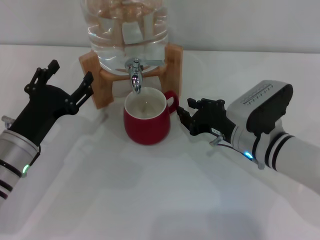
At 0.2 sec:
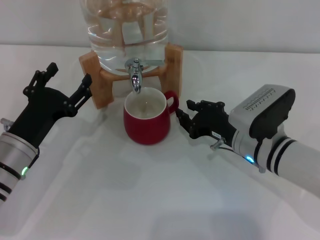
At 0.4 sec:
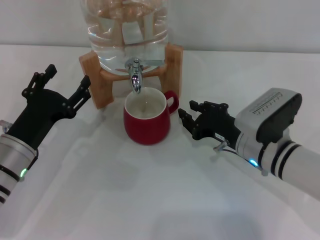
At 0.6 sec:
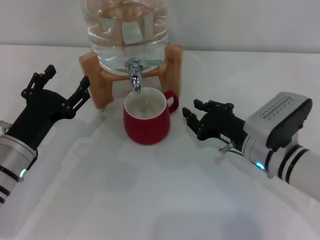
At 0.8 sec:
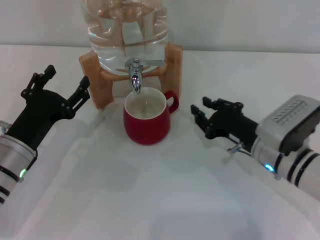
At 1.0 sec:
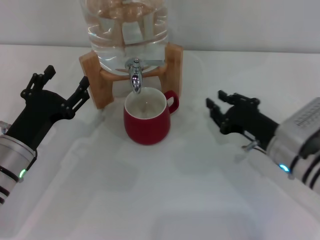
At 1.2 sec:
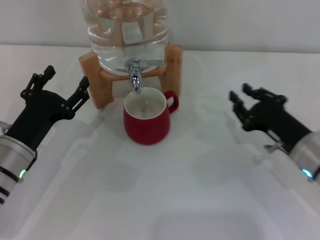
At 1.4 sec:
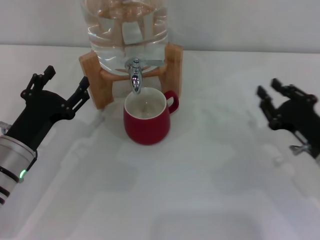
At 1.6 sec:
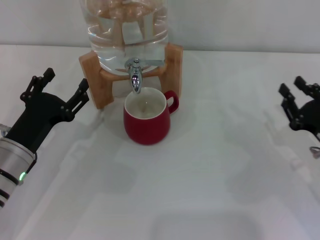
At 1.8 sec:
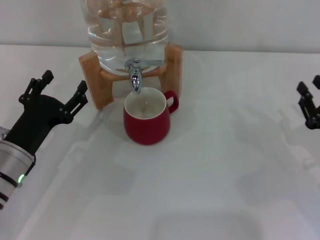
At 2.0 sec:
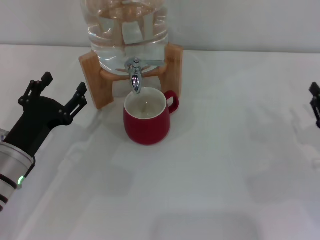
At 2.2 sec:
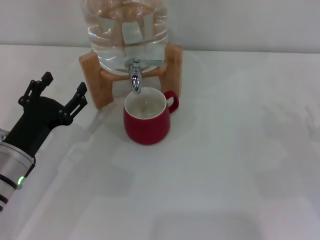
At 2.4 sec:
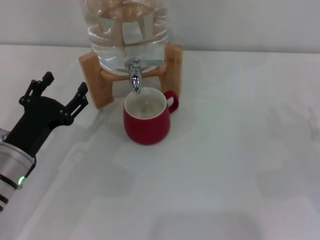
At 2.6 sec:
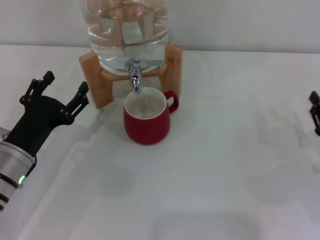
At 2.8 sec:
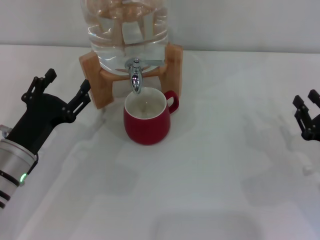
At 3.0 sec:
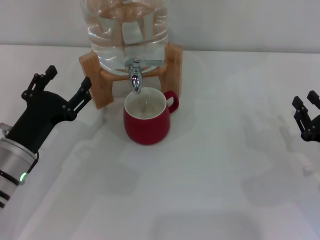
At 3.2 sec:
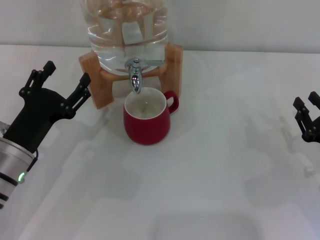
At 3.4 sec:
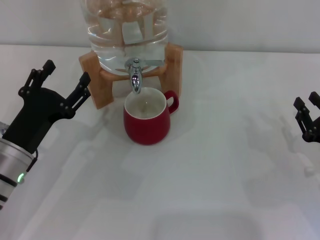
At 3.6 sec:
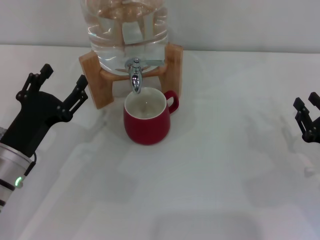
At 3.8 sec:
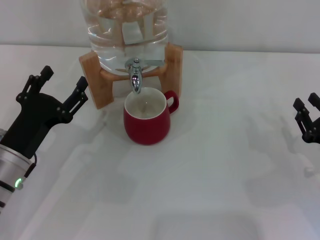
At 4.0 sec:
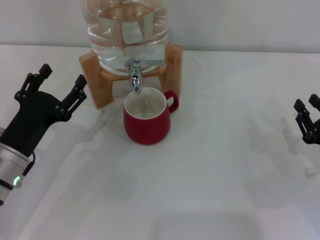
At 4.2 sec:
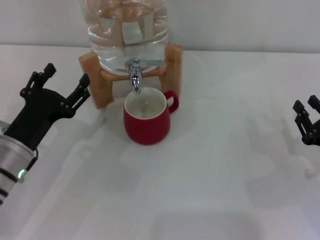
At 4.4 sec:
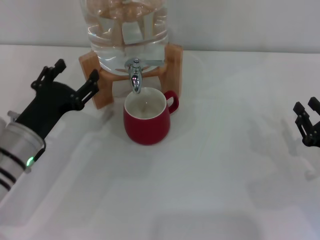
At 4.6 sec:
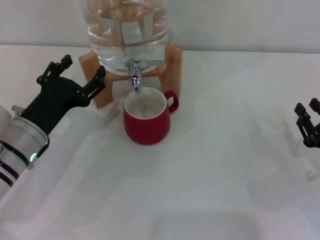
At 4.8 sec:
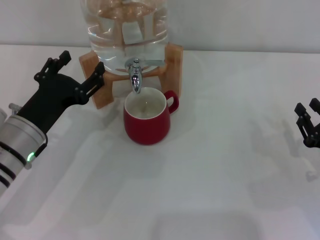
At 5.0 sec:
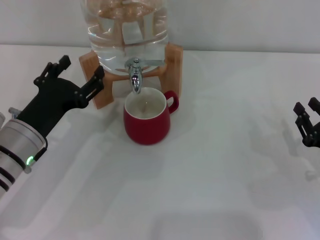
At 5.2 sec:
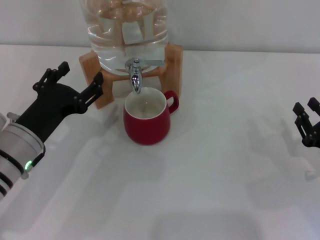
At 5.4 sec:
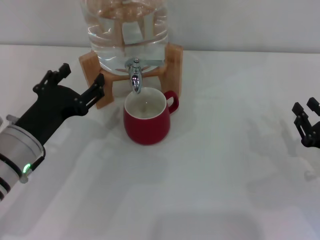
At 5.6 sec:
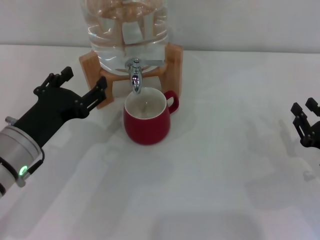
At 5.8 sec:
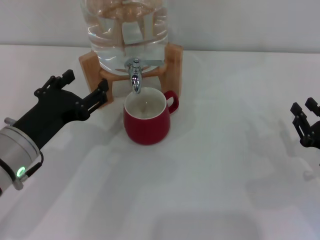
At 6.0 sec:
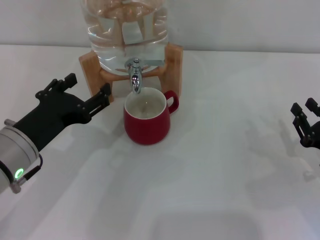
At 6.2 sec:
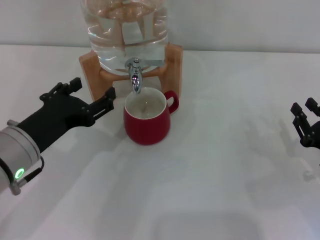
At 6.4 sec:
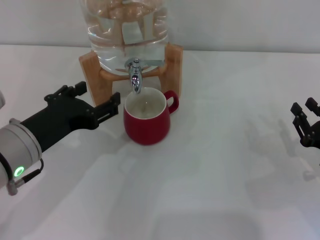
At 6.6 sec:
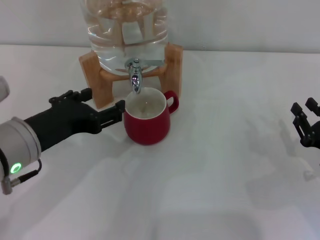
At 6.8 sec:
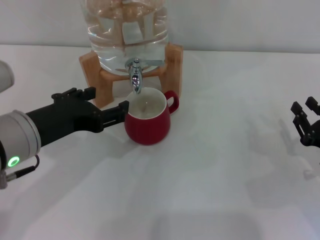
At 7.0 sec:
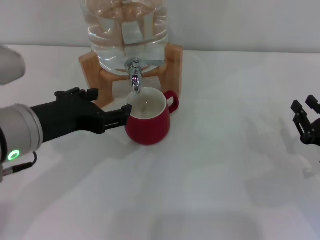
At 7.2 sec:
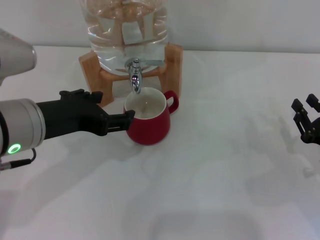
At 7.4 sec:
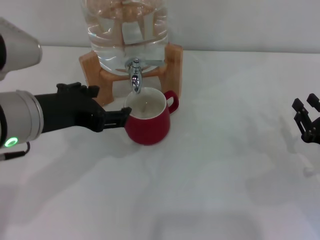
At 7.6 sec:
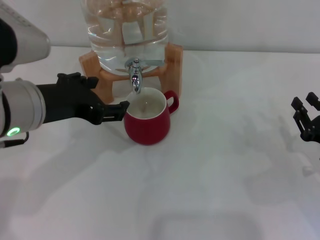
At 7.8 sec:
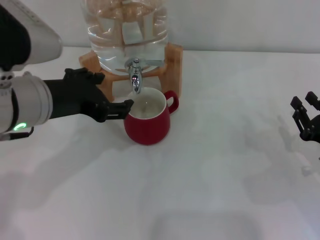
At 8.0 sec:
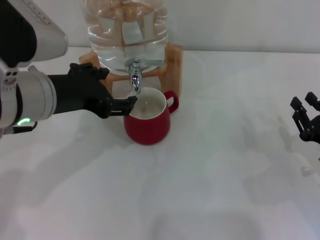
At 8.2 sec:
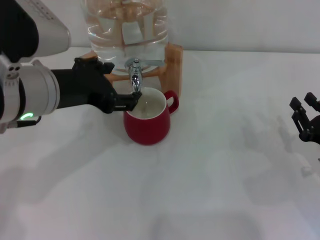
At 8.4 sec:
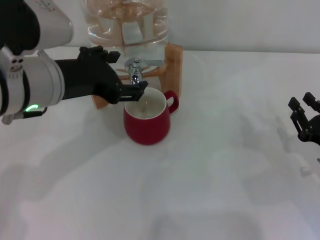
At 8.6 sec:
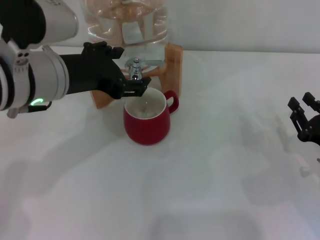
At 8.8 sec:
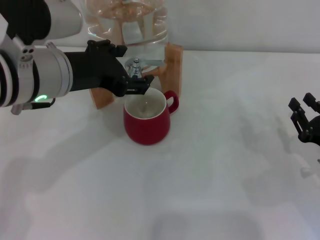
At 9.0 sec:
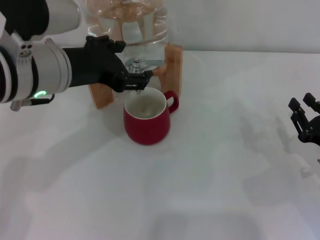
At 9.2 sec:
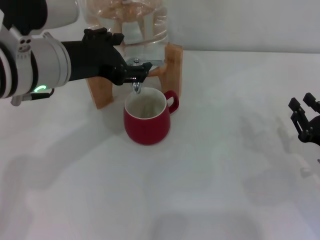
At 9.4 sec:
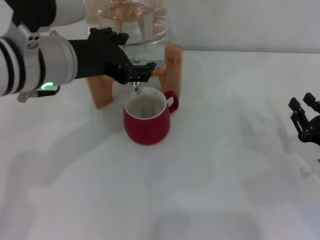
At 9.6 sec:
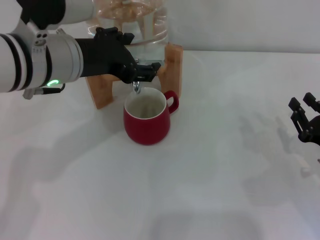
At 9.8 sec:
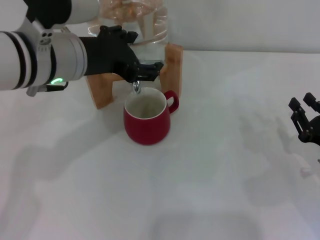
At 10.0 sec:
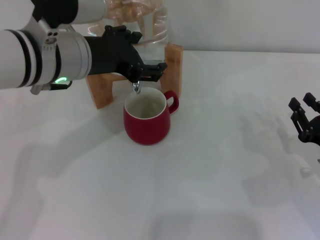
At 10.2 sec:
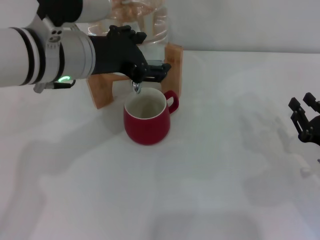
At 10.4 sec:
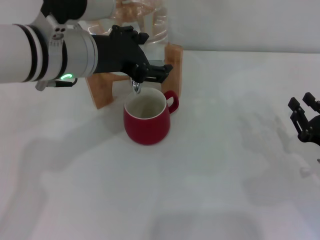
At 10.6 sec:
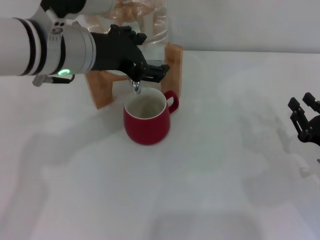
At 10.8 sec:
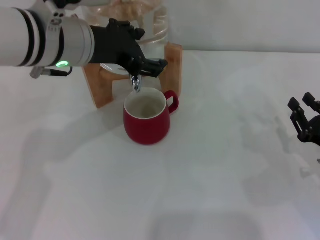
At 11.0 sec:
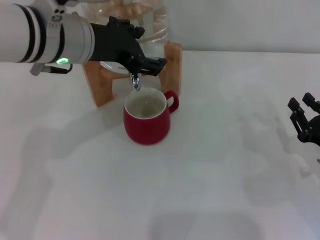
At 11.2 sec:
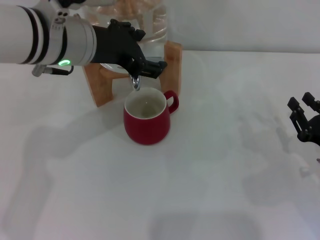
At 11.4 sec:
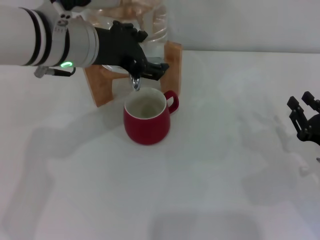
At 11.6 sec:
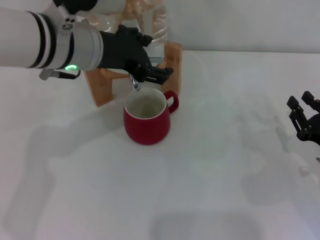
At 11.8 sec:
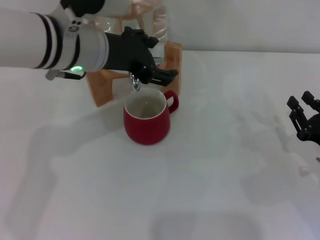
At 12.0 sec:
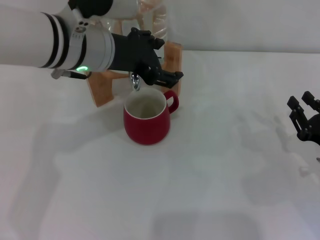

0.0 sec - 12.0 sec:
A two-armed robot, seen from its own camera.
Task of the whole recording: the right gripper pick up the red cup and place it horizontally under the faucet, the left gripper turn on the faucet to fill the cup, and then turn off the faucet.
0.0 sec - 1.6 sec: The right gripper moves to the right and backward, approximately 15 cm.
1.6 sec - 4.4 sec: The grippers move only a little.
4.4 sec - 6.0 sec: The left gripper is displaced upward by approximately 5 cm.
6.0 sec - 7.6 sec: The left gripper is displaced upward by approximately 10 cm.
7.6 sec - 9.0 sec: There are only small adjustments of the grippers.
9.0 sec - 10.4 sec: The grippers move only a little.
10.4 sec - 12.0 sec: The grippers make only small movements.

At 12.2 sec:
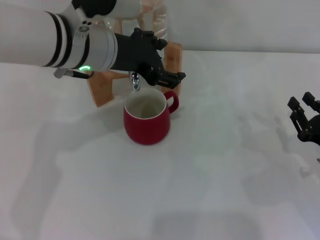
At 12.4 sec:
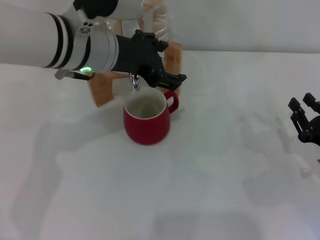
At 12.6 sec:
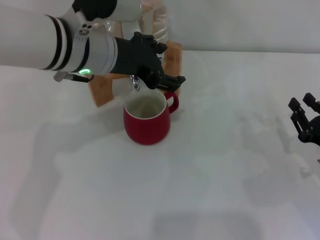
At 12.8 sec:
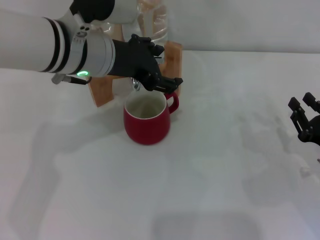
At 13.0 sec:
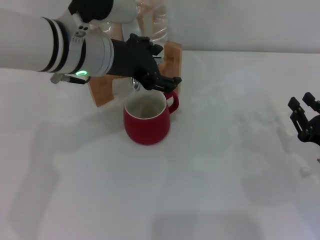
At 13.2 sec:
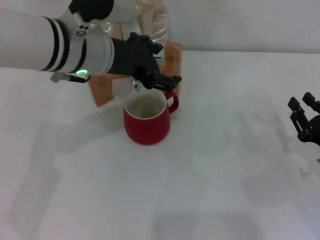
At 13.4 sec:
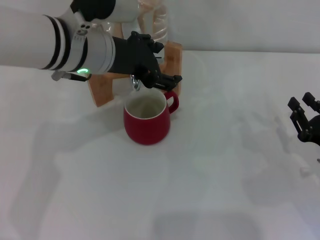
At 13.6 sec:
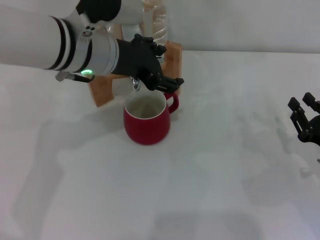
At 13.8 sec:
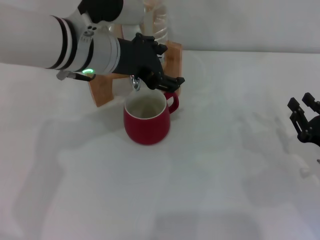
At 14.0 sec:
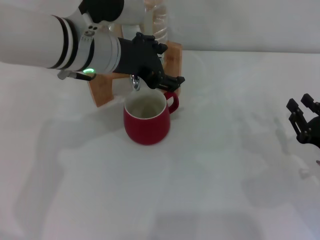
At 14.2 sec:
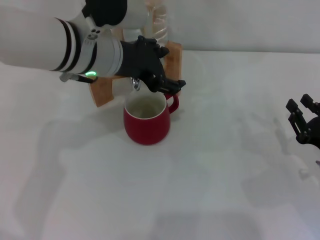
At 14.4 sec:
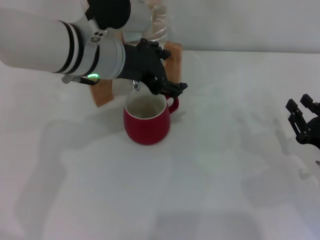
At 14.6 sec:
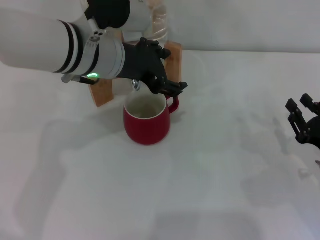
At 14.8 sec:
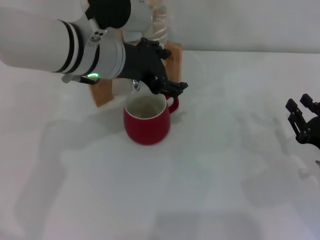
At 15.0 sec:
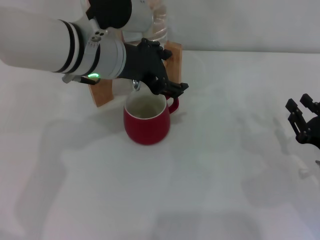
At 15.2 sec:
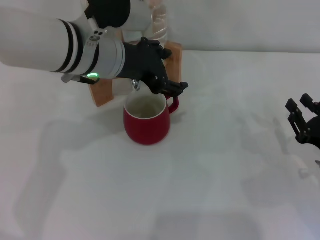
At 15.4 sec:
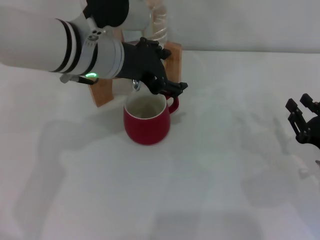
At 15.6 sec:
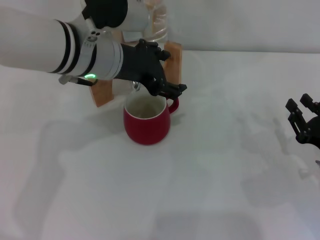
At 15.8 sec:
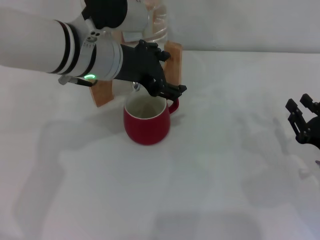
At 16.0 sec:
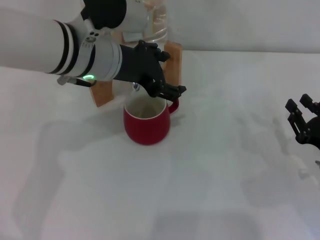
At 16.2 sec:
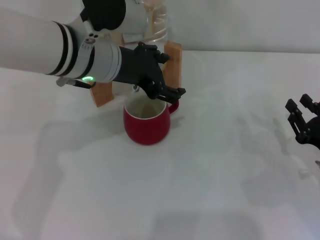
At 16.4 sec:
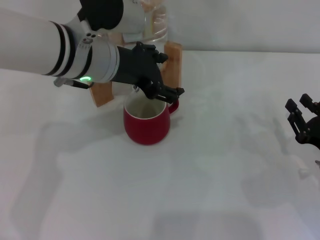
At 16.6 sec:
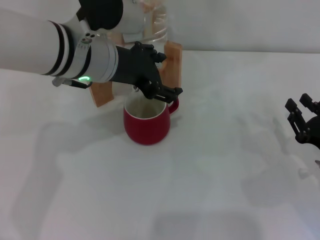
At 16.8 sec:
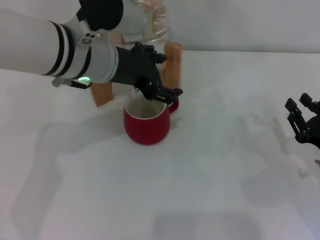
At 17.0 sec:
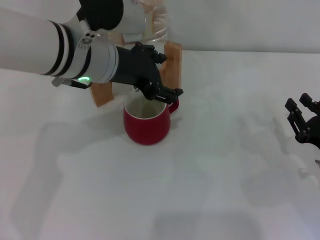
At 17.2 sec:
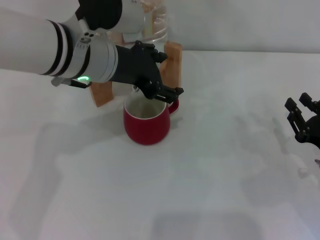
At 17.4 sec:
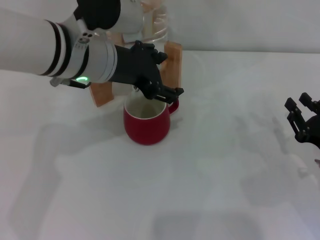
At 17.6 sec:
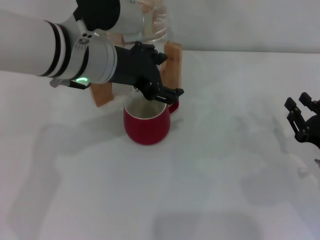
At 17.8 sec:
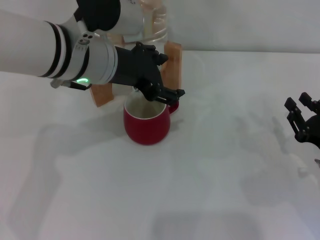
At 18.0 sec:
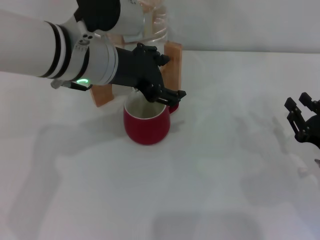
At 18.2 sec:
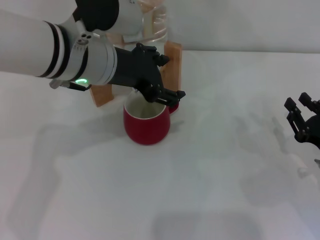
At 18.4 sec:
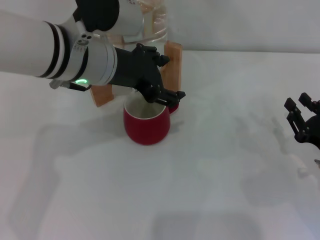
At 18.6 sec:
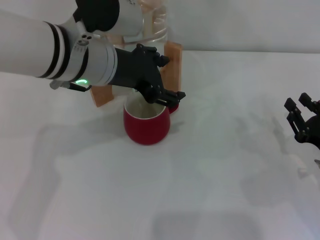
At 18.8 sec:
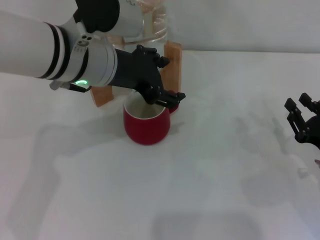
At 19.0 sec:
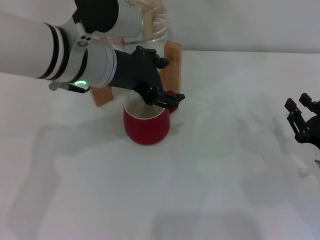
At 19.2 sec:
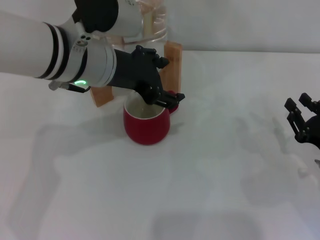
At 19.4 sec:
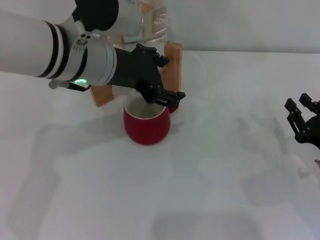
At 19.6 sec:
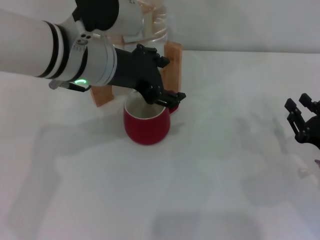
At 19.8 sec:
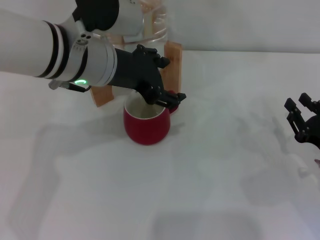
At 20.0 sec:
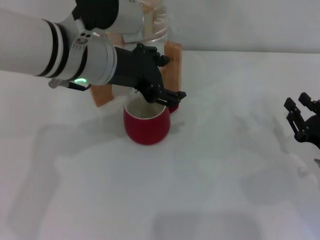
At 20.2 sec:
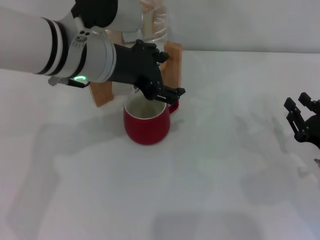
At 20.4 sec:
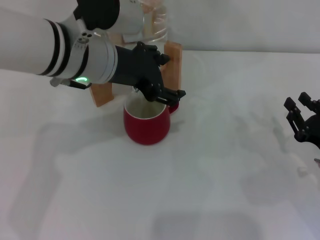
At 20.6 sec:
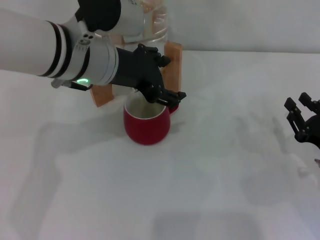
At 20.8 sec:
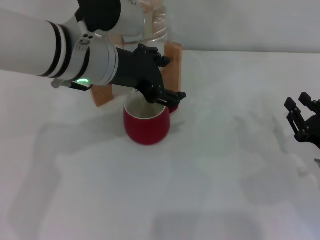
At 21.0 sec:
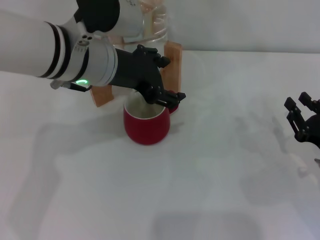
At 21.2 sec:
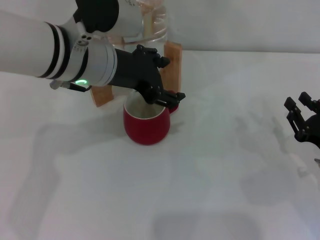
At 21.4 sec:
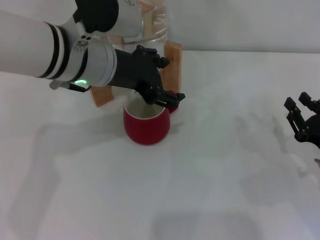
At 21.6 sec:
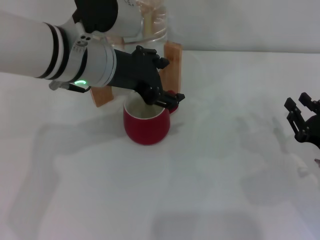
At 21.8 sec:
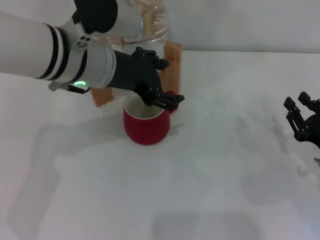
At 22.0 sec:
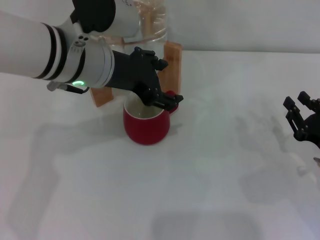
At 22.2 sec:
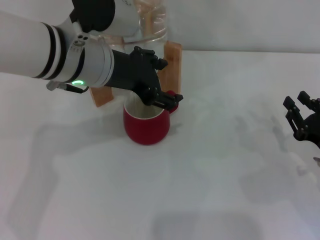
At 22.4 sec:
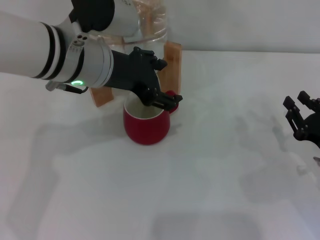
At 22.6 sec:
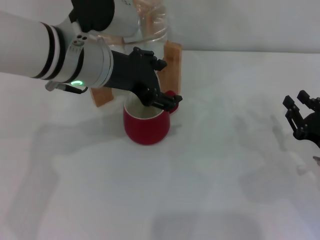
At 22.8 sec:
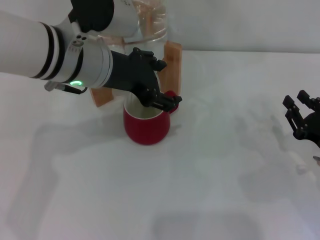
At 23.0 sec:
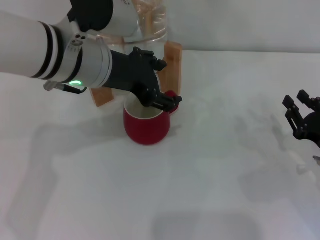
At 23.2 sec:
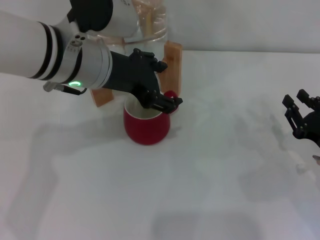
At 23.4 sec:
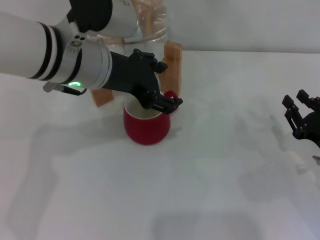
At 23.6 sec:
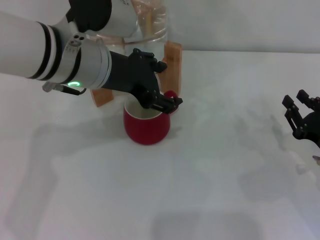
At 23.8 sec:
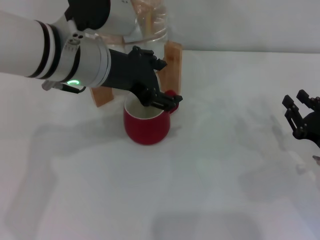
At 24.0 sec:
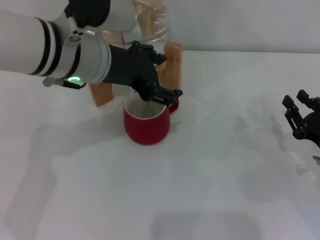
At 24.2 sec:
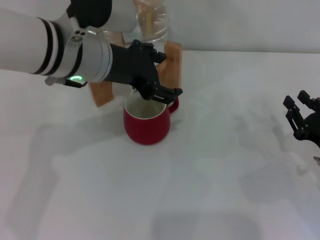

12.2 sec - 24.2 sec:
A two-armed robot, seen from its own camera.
Task of the whole recording: the right gripper pick up the red cup and place it horizontally under the faucet, the left gripper turn on the faucet to fill the cup, and then turn off the faucet.
12.2 sec - 13.8 sec: The two grippers keep their place.
13.8 sec - 16.6 sec: Both grippers stay put.
16.6 sec - 18.2 sec: The two grippers keep their place.
18.2 sec - 24.2 sec: Both grippers stay about where they are.
